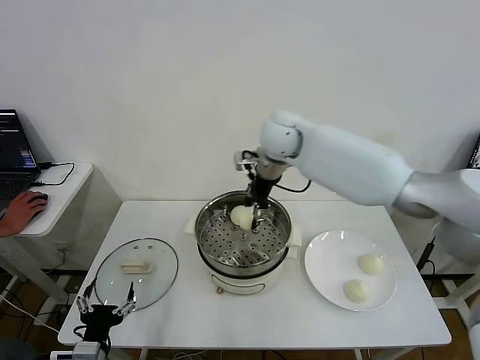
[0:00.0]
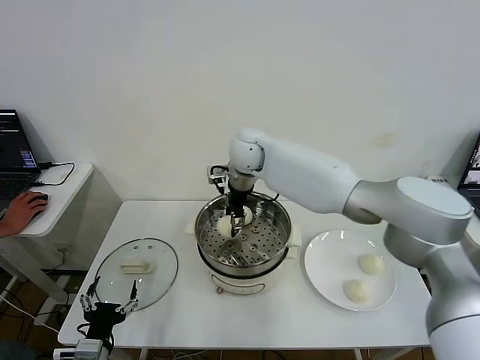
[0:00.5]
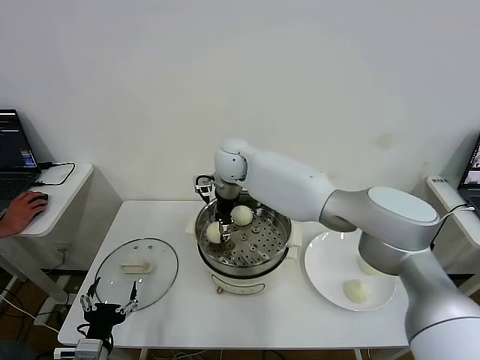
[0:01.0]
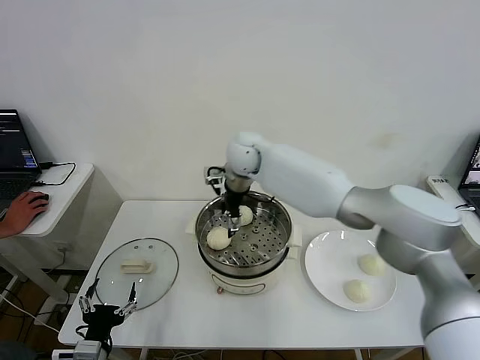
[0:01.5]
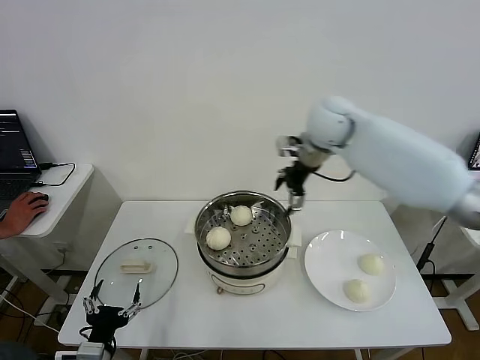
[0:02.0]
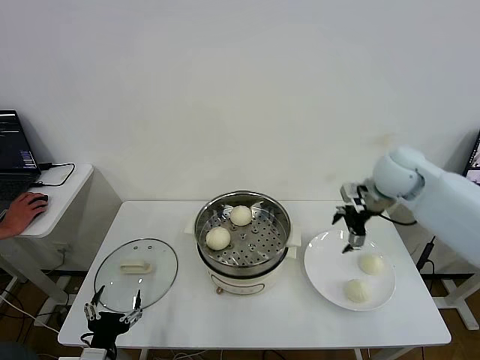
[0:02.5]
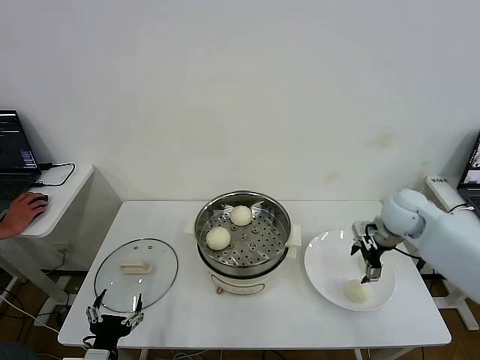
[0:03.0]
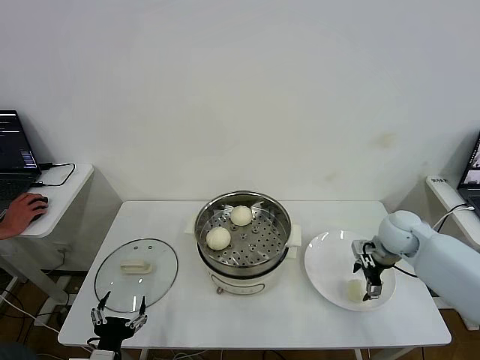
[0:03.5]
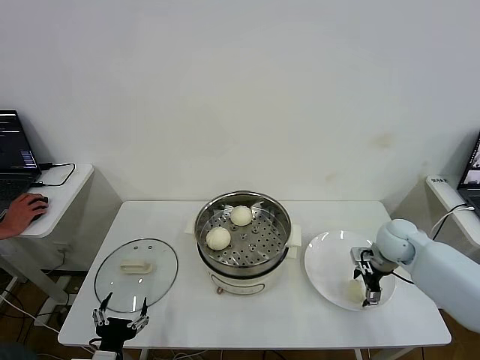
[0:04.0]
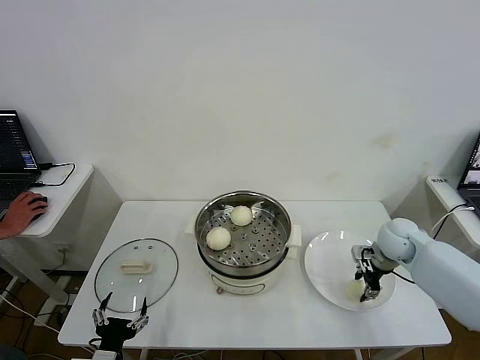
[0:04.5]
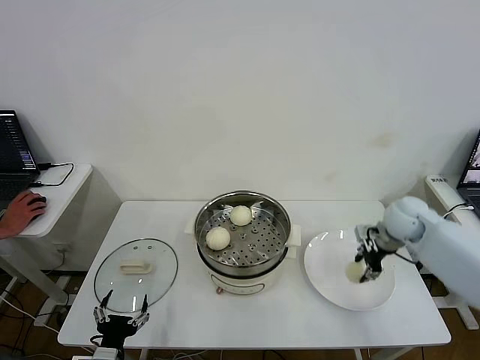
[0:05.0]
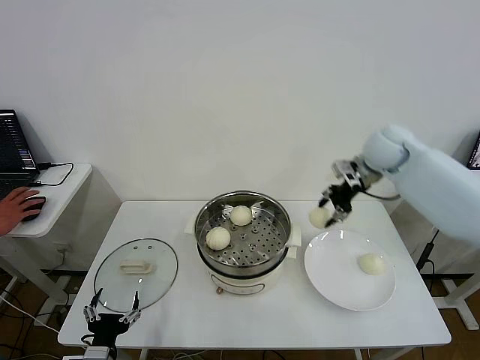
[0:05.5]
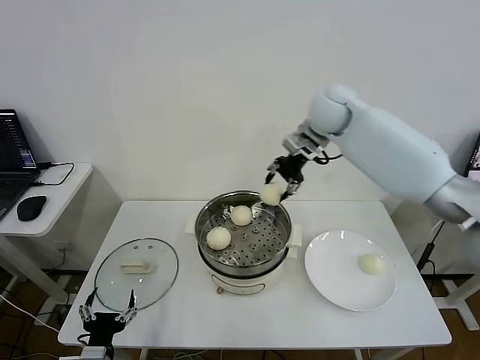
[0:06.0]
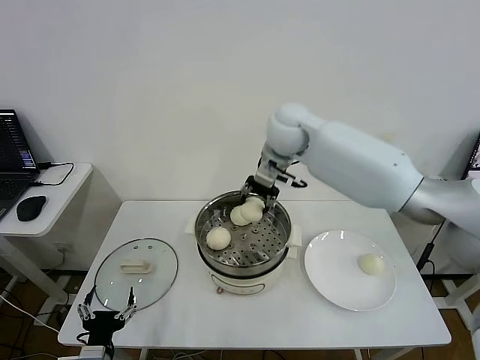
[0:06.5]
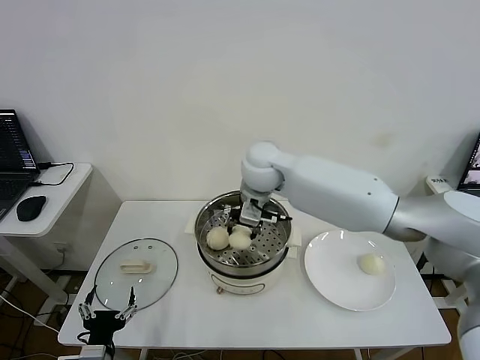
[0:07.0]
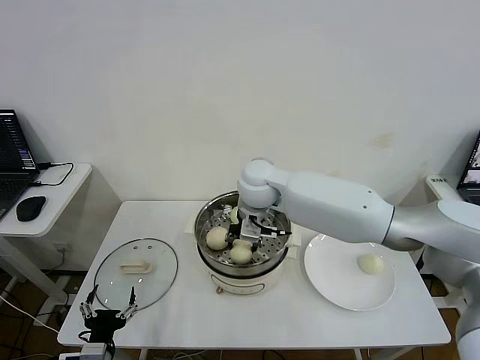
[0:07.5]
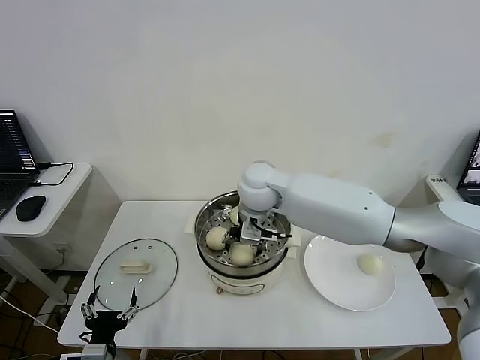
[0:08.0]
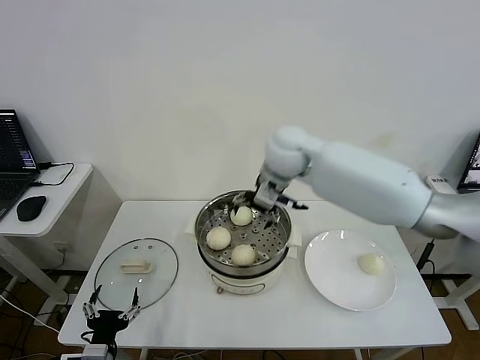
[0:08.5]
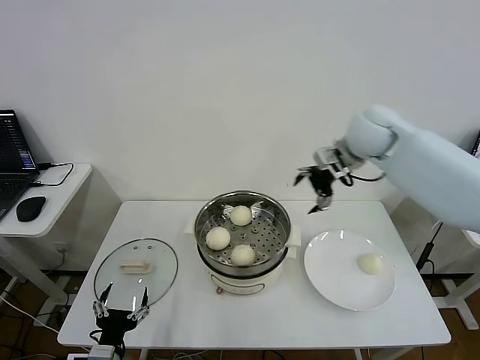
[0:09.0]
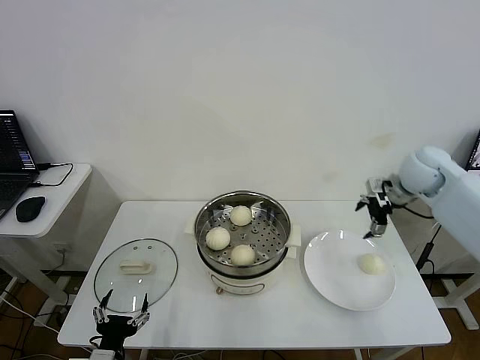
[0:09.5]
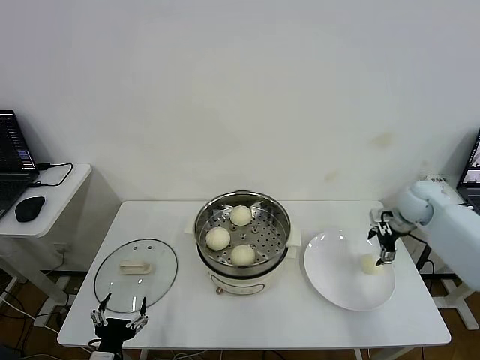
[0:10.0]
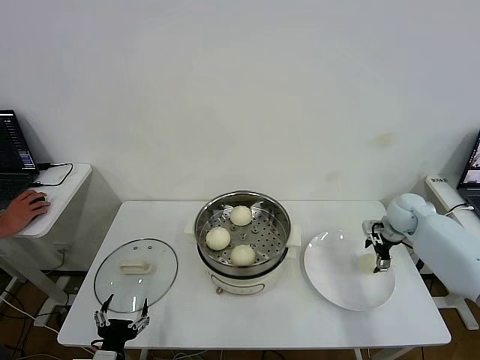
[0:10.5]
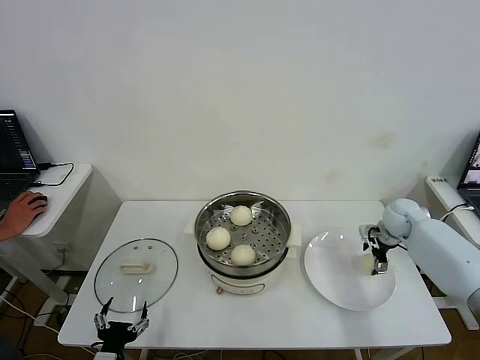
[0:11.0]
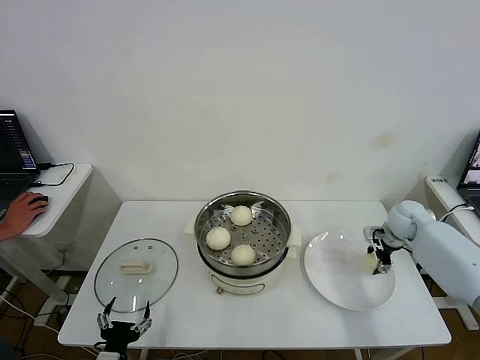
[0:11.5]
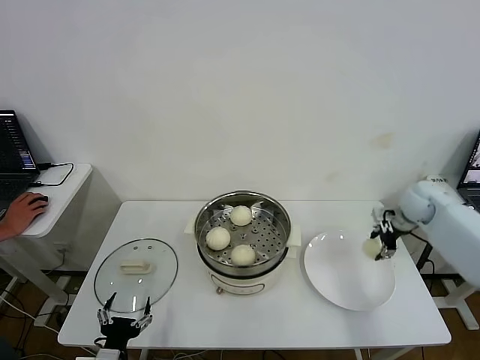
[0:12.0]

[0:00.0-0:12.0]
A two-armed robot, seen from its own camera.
Step, 0:01.5 to 0:04.0: Grasp the baozi in the plate with right gripper.
Step, 0:05.0 to 0:08.0: Place the baozi on the steamer with right gripper.
Step, 0:08.5 to 0:11.5: Grasp the baozi in the plate with right gripper.
0:00.0 to 0:02.0: The right gripper travels to the right by roughly 15 cm, and opens up.
0:02.0 to 0:04.0: The right gripper is displaced downward and to the right by approximately 30 cm.
0:04.0 to 0:06.0: The right gripper goes some 35 cm upward, to the left and forward, and closes.
0:06.0 to 0:08.0: The right gripper moves to the left, downward and backward, approximately 20 cm, and opens.
0:08.0 to 0:10.0: The right gripper shifts some 40 cm to the right.
0:10.0 to 0:12.0: The right gripper travels downward and back again, roughly 5 cm each way, and closes up.

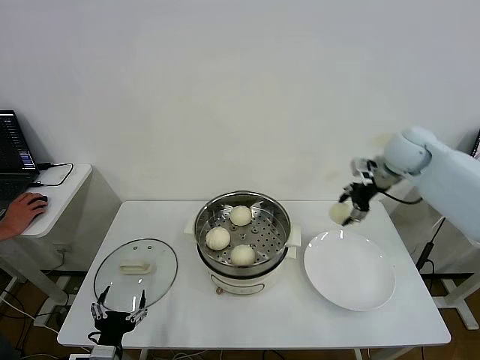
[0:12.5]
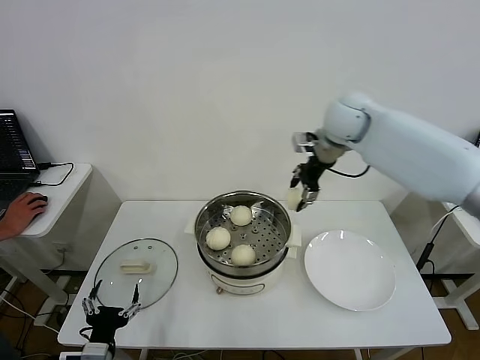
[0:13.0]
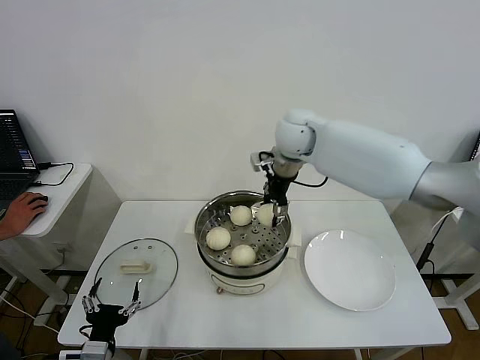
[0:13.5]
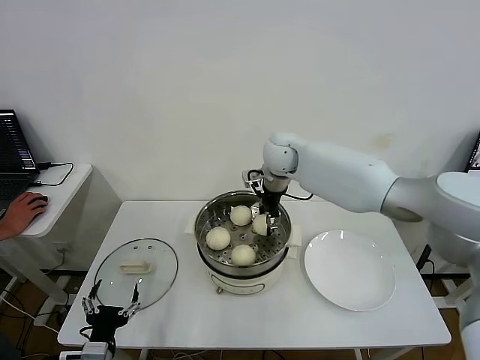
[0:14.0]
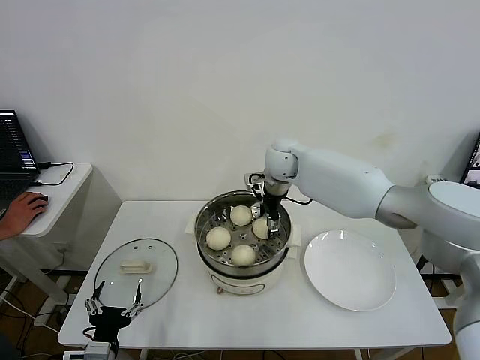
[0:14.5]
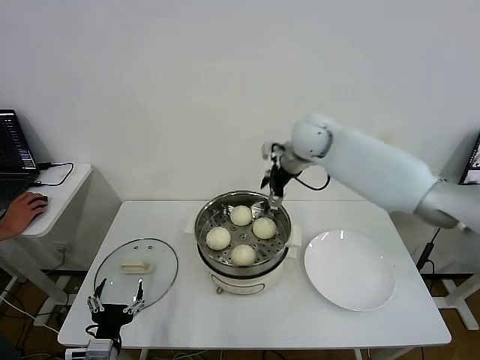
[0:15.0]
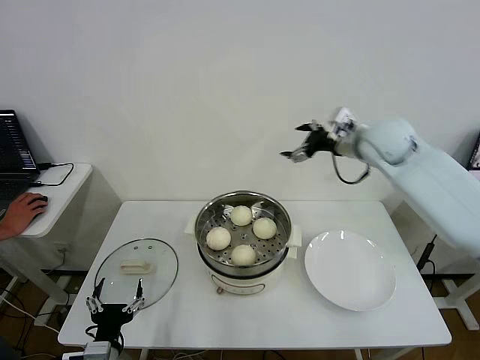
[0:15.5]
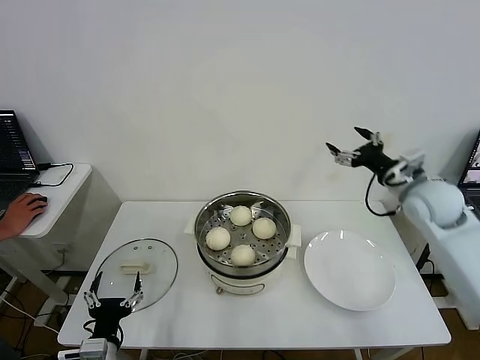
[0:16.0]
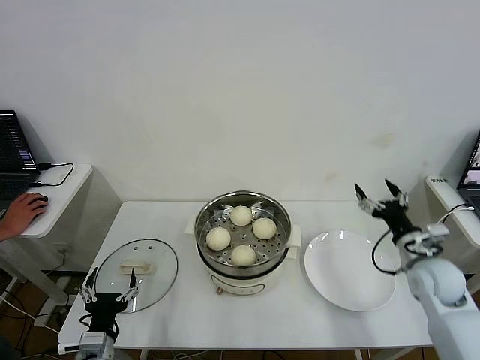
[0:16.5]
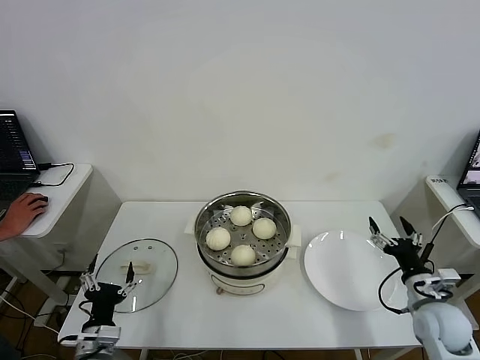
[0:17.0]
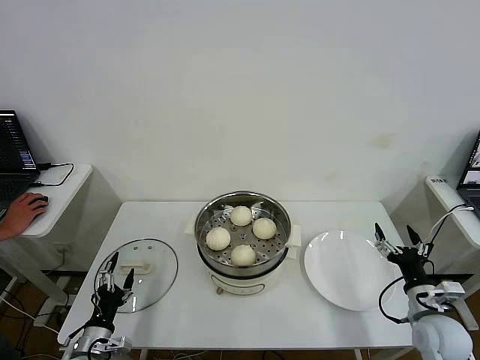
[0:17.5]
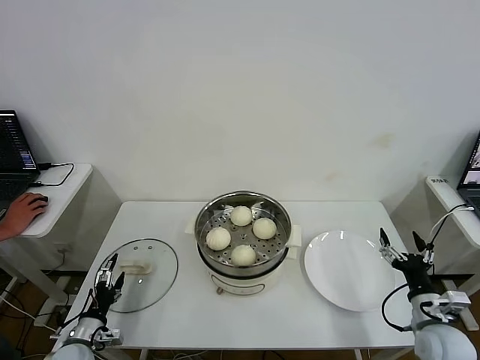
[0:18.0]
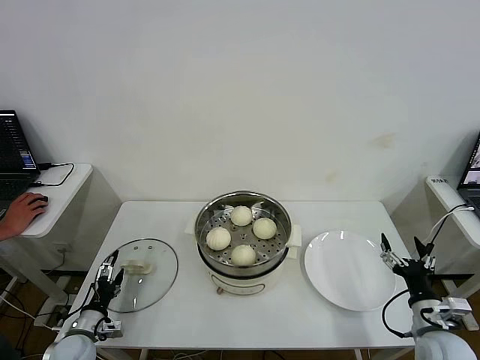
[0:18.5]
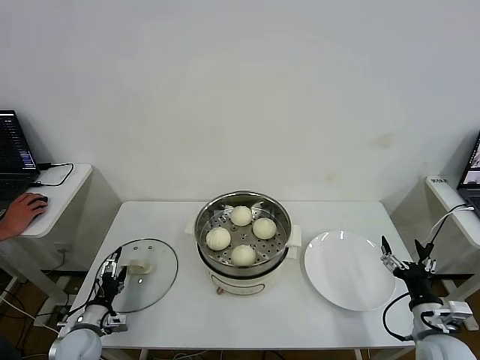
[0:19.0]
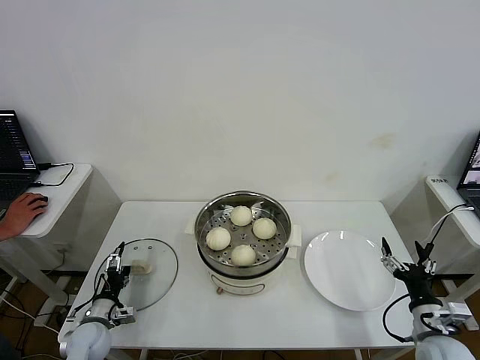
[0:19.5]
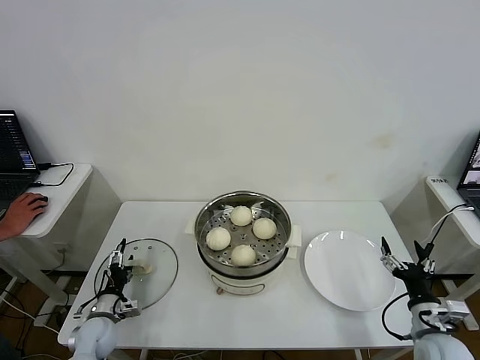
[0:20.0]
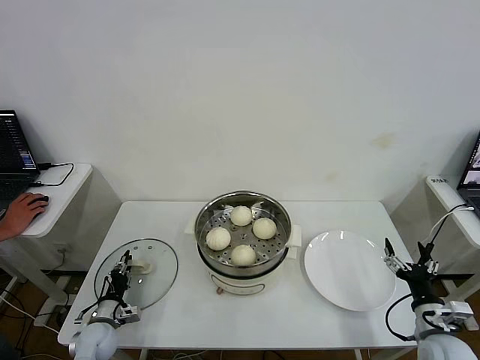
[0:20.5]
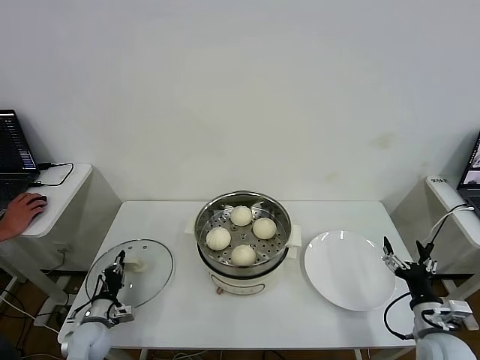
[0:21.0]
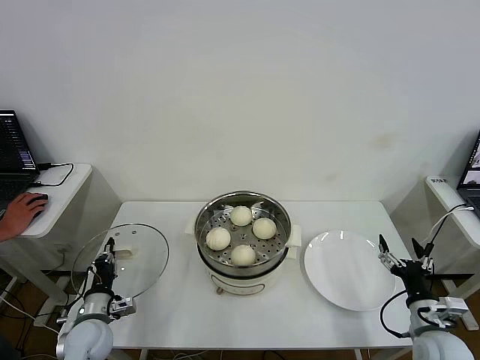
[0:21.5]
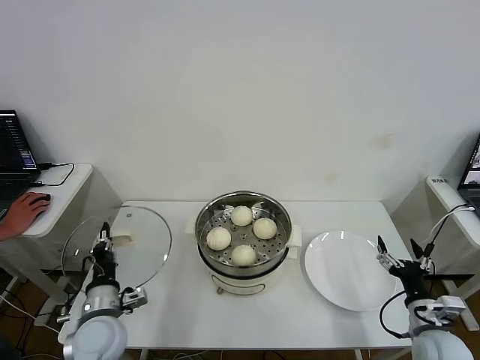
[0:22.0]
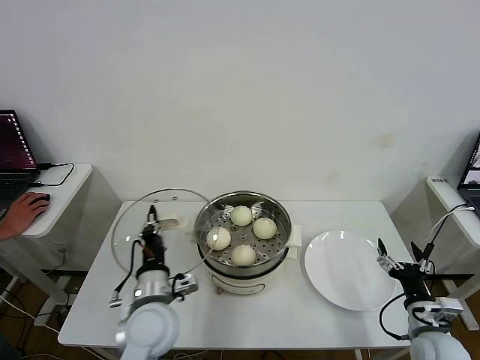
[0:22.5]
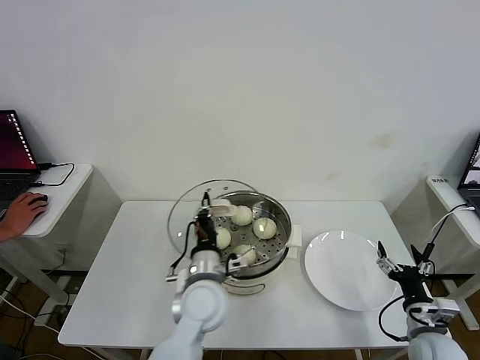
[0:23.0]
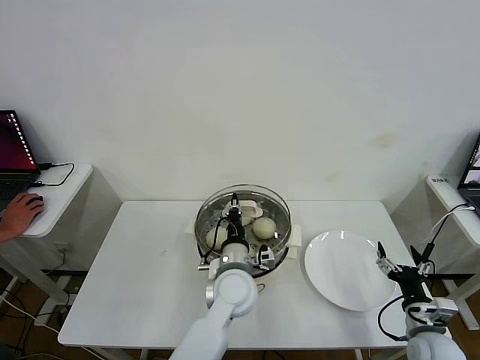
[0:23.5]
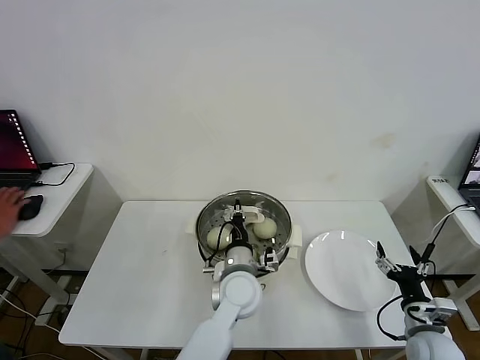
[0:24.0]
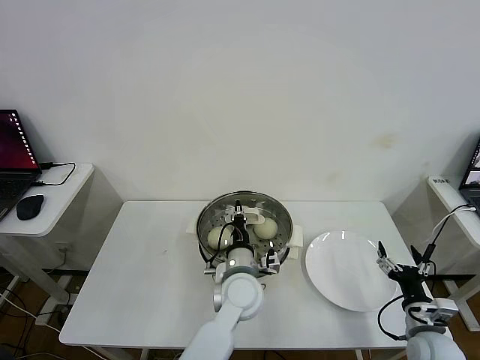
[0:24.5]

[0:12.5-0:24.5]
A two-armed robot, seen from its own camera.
Step, 0:12.5 to 0:14.5: Place the baozi on the steamer with right gripper.
Step, 0:15.0 to 0:21.0: Grasp the pot lid with left gripper.
0:12.5 to 0:14.5: The right gripper goes approximately 25 cm to the left, and opens its fingers.
0:14.5 to 0:16.5: The right gripper goes about 40 cm to the right, backward and downward.
0:16.5 to 0:18.5: The right gripper goes approximately 15 cm backward and downward. The left gripper shifts approximately 15 cm to the left, downward and forward.
0:18.5 to 0:20.5: The left gripper ends up some 5 cm from where it was, and closes.
0:20.5 to 0:22.5: The left gripper travels upward and to the right by approximately 30 cm, and closes.
0:22.5 to 0:24.5: The left gripper travels to the right and forward by roughly 20 cm.

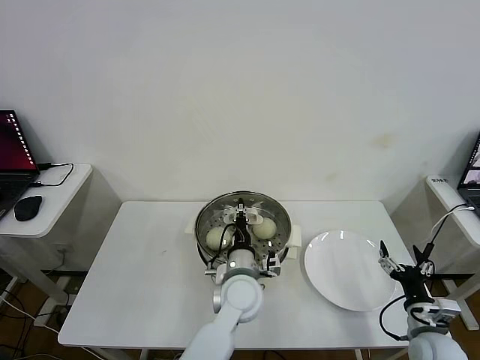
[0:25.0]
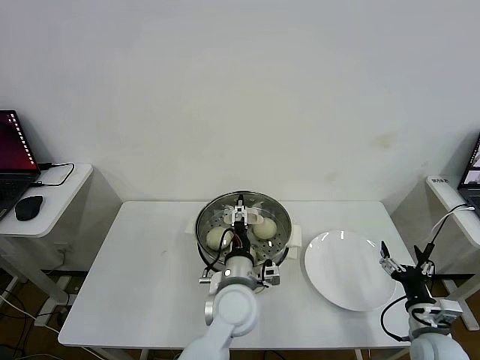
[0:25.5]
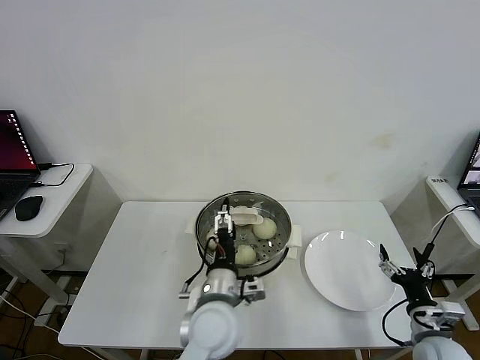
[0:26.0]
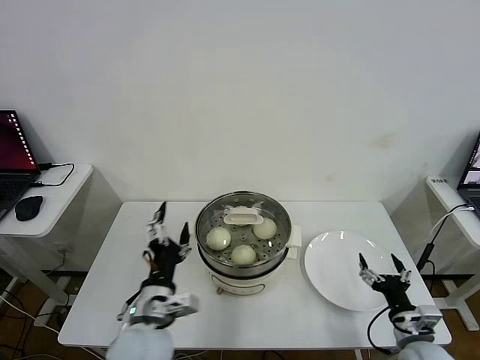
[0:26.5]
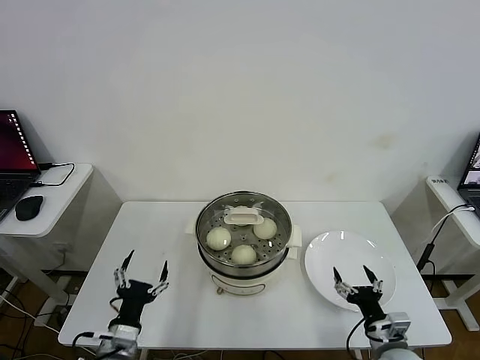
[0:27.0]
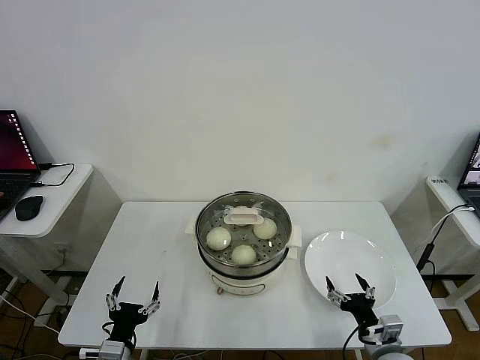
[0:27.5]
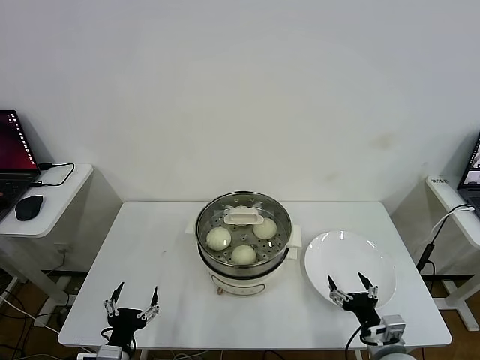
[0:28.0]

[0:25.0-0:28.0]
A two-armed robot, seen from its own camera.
0:25.0 to 0:26.5: The left gripper is displaced to the left and backward by roughly 20 cm, and opens its fingers.
0:26.5 to 0:28.0: The right gripper shifts roughly 5 cm to the left; the left gripper shifts some 20 cm downward, to the left and backward.
